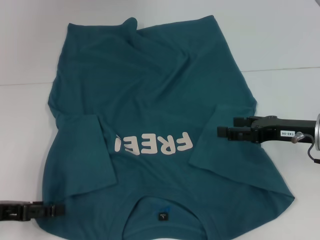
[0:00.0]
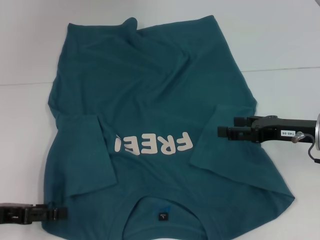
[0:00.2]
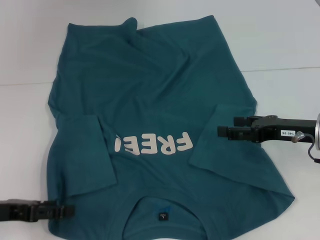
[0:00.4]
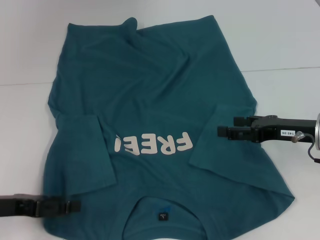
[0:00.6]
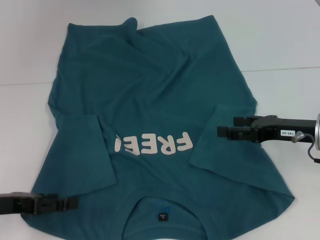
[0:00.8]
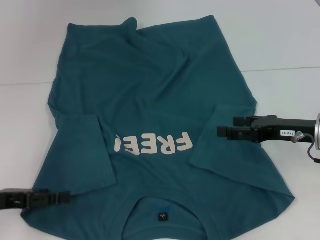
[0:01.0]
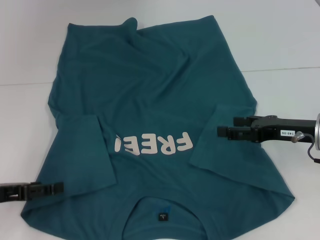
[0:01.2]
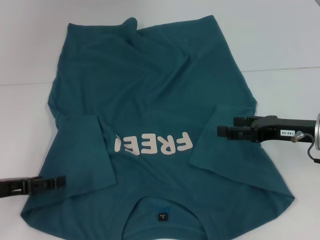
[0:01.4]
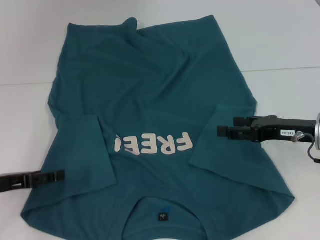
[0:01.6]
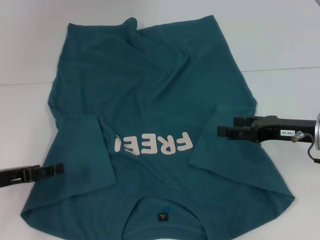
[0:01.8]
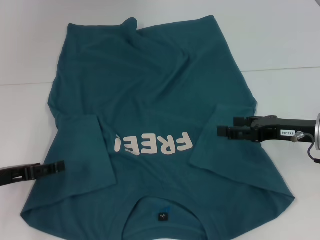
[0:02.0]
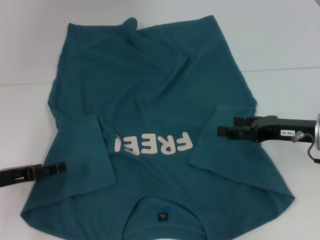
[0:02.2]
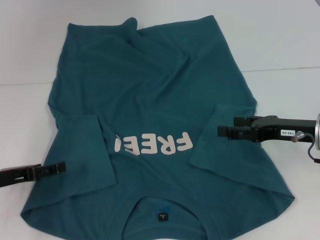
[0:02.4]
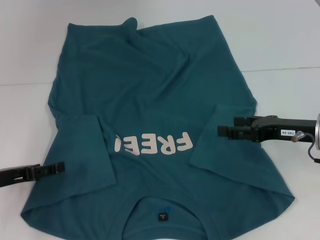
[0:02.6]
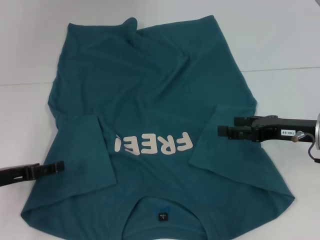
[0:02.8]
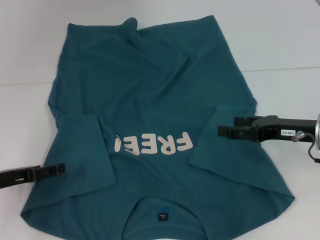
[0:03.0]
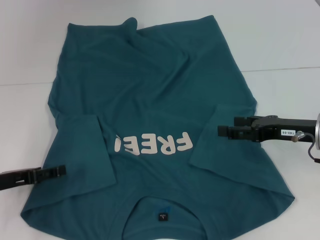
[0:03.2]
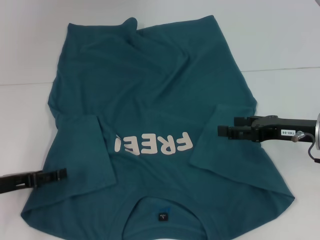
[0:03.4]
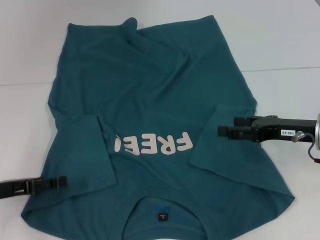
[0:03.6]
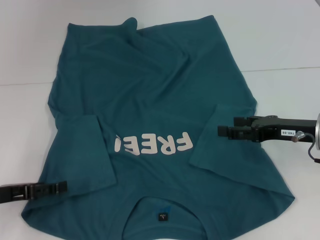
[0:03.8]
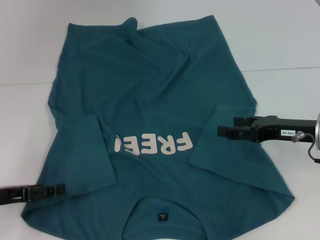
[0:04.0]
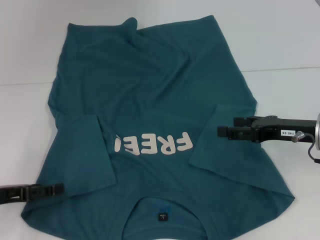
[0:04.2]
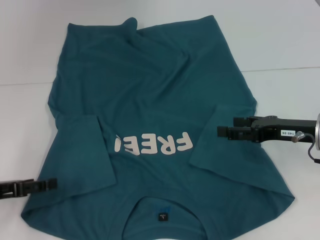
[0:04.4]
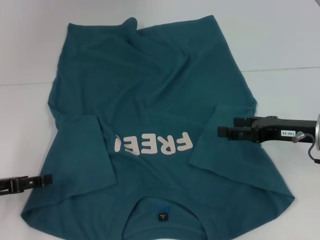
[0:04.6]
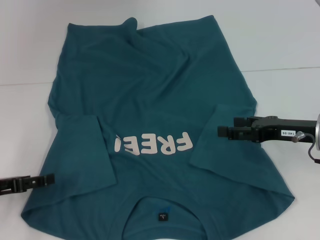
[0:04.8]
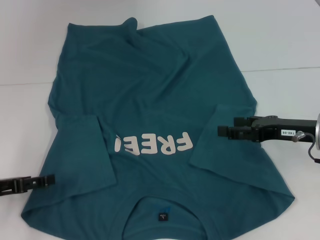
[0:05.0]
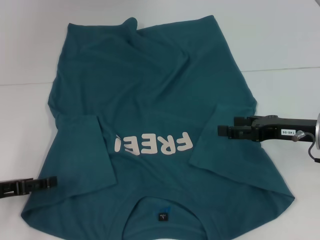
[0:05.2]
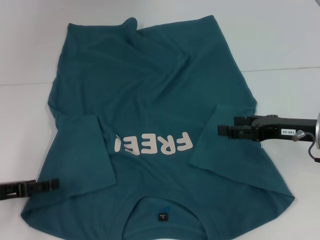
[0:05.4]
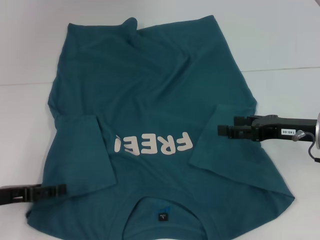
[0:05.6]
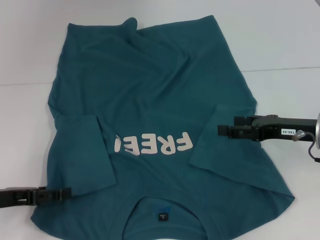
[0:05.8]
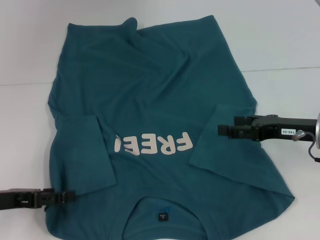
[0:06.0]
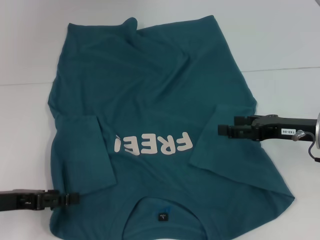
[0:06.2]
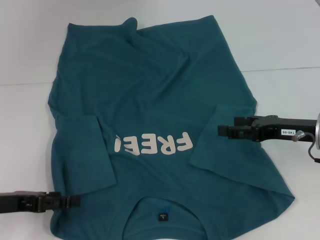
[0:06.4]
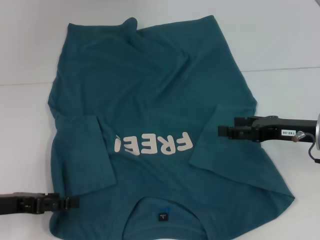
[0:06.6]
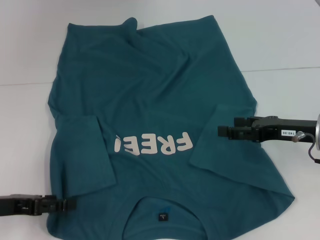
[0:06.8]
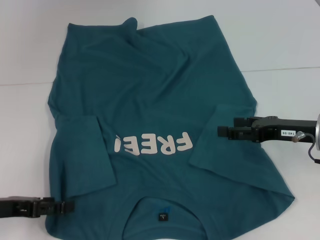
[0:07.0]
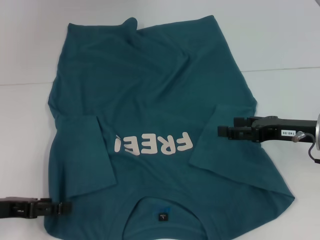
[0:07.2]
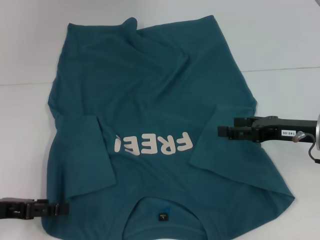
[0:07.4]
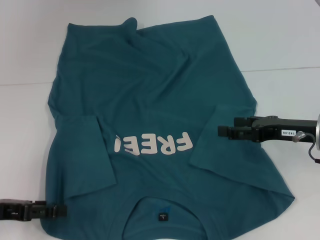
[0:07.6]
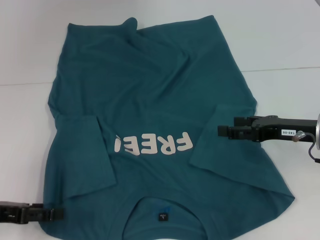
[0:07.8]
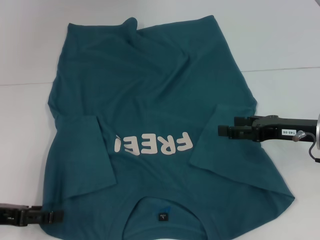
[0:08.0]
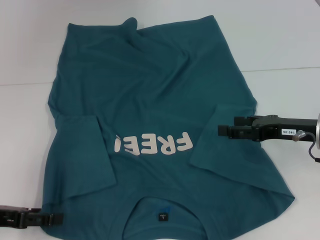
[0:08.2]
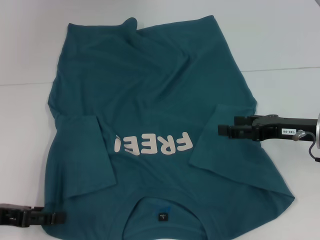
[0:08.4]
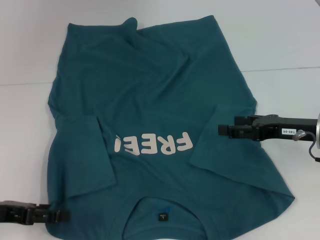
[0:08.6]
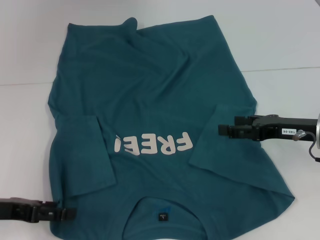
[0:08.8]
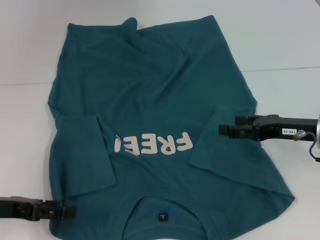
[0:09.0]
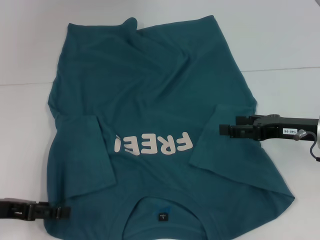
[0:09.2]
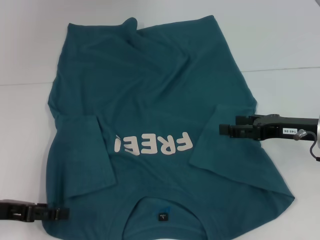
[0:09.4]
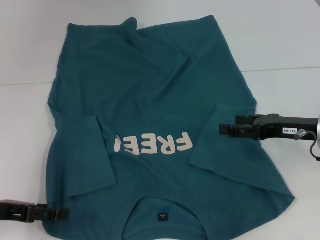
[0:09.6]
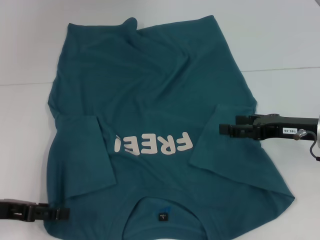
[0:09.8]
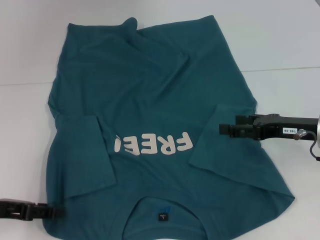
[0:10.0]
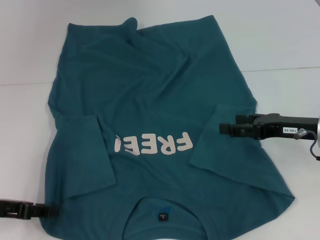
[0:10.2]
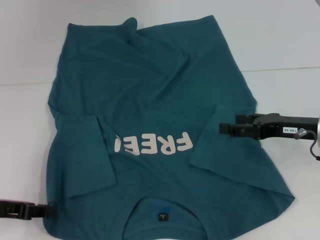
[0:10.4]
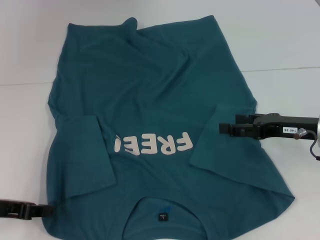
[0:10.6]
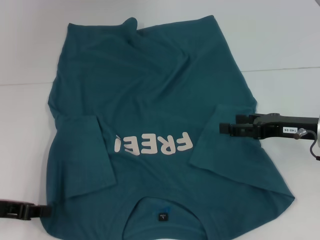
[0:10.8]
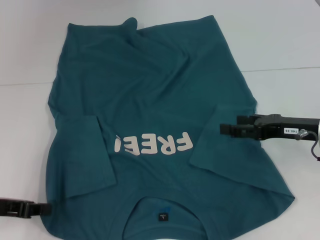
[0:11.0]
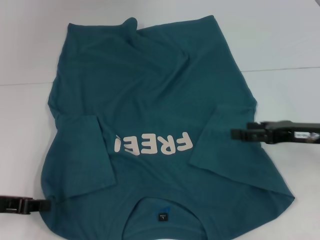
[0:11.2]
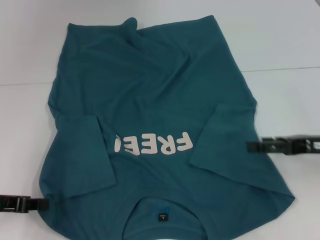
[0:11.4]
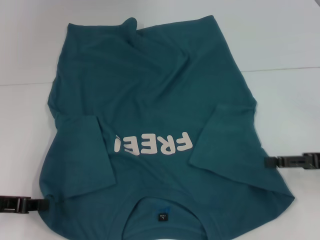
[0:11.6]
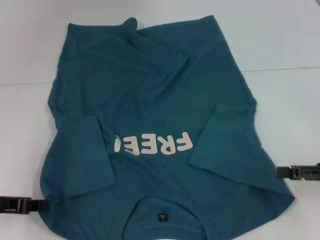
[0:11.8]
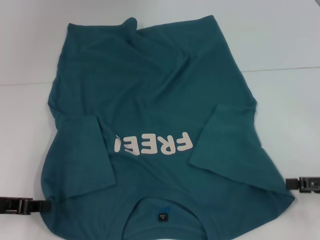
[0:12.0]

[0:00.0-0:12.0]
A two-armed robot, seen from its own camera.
Step, 0:00.0 to 0:11.2: Grab the bottom left corner with your left hand.
0:00.0 to 0:06.0: The grippers stay close to where they were, moving slightly.
0:06.0 to 0:07.6: The two grippers keep their place.
0:07.6 to 0:09.0: The grippers stay close to where they were, moving slightly.
0:09.0 to 0:10.4: The left gripper closes up.
0:10.4 to 0:12.0: The left gripper closes, while the right gripper moves to the right and backward, about 10 cm.

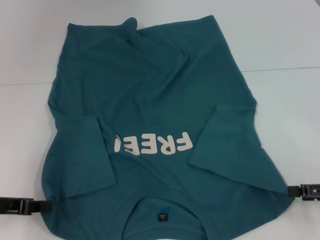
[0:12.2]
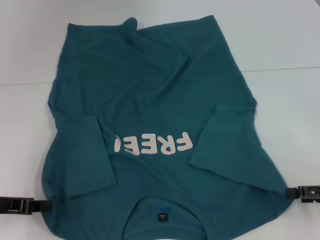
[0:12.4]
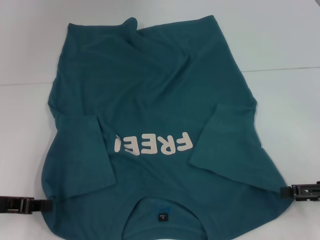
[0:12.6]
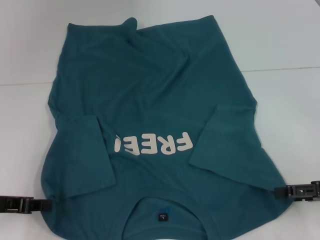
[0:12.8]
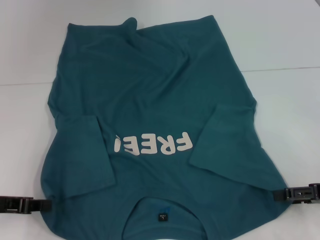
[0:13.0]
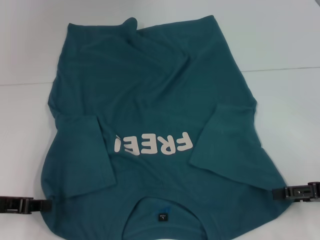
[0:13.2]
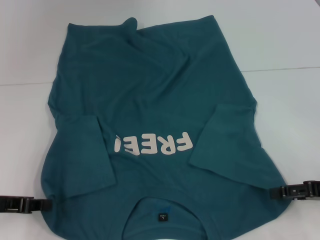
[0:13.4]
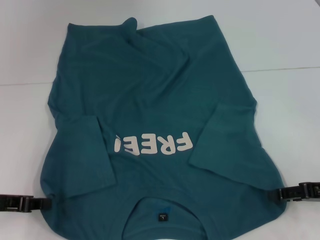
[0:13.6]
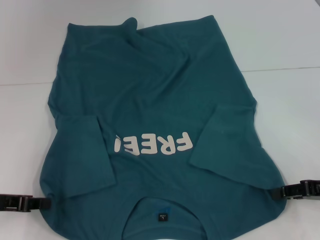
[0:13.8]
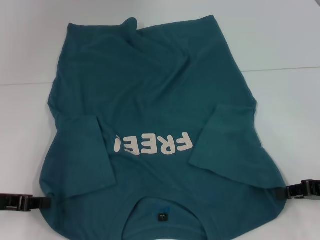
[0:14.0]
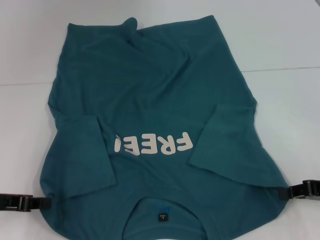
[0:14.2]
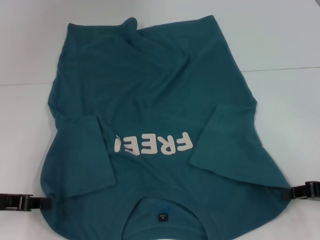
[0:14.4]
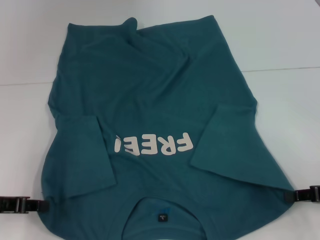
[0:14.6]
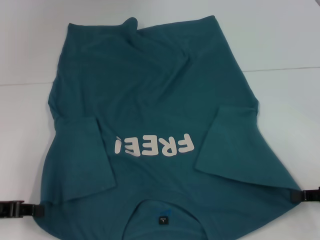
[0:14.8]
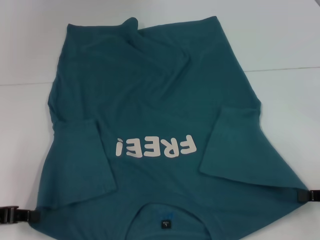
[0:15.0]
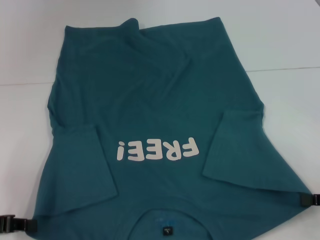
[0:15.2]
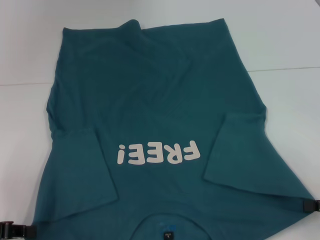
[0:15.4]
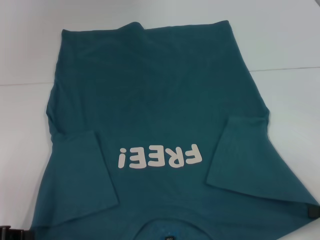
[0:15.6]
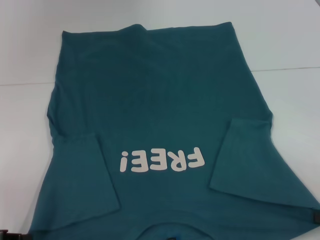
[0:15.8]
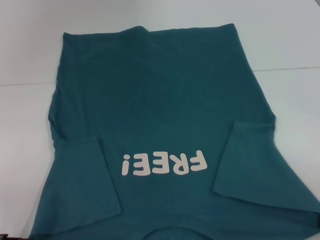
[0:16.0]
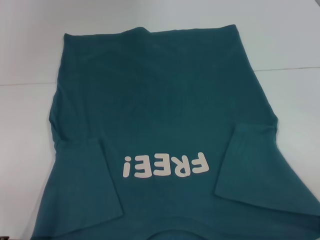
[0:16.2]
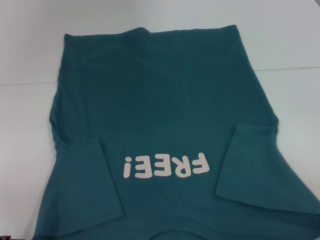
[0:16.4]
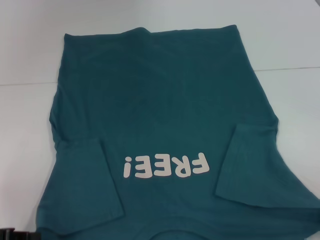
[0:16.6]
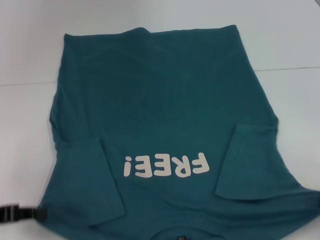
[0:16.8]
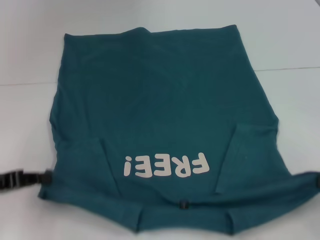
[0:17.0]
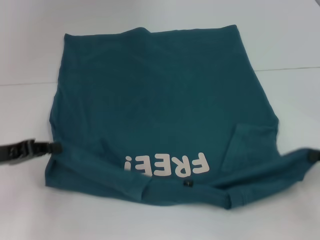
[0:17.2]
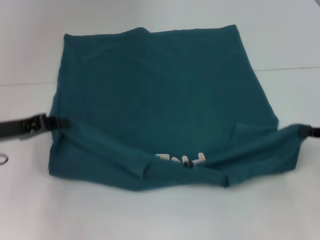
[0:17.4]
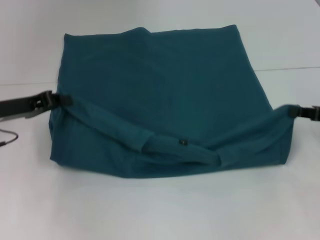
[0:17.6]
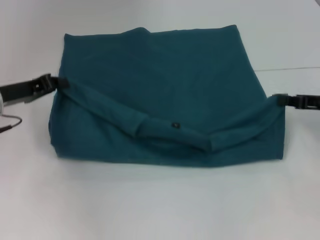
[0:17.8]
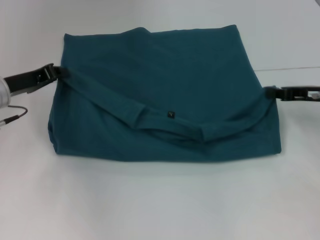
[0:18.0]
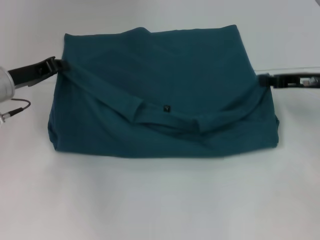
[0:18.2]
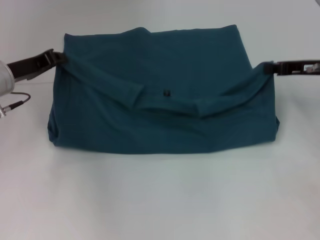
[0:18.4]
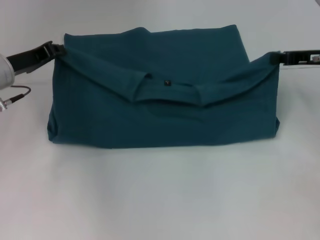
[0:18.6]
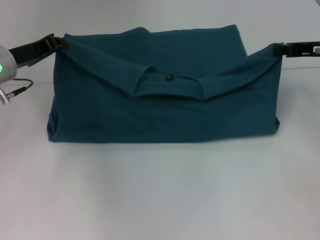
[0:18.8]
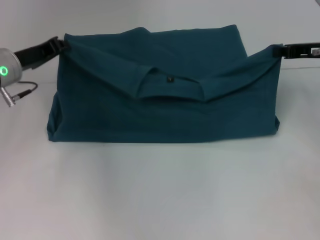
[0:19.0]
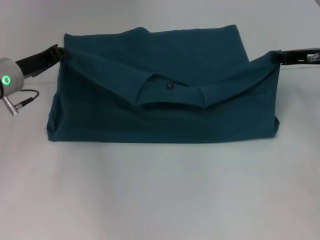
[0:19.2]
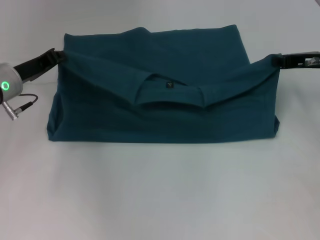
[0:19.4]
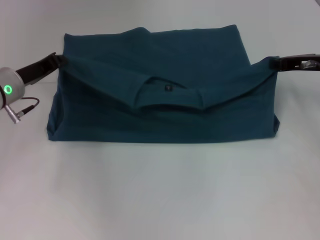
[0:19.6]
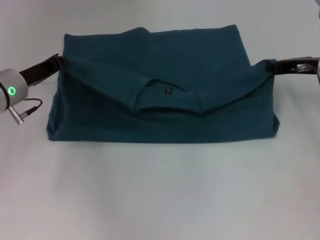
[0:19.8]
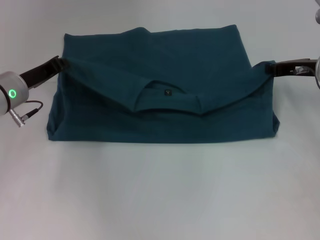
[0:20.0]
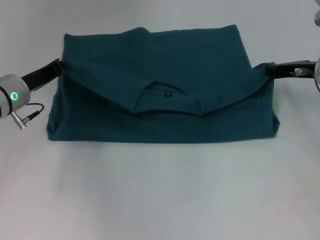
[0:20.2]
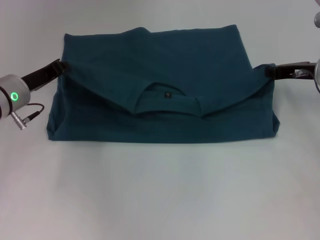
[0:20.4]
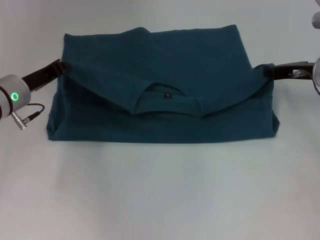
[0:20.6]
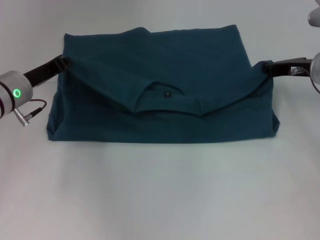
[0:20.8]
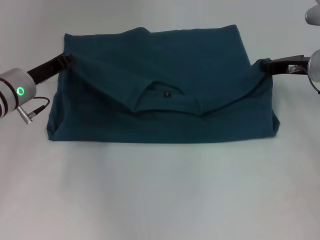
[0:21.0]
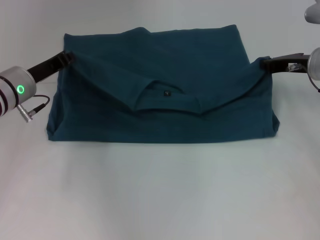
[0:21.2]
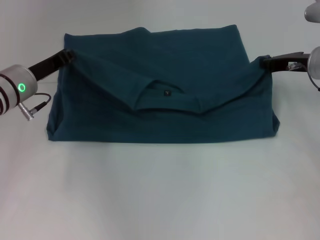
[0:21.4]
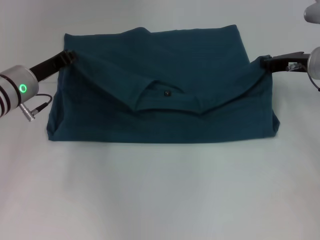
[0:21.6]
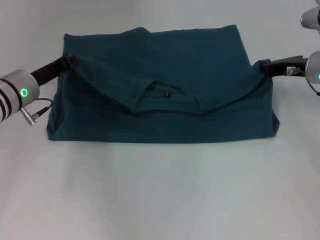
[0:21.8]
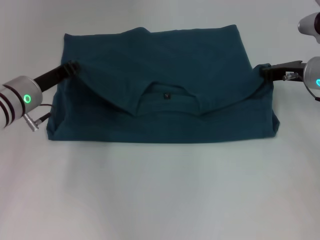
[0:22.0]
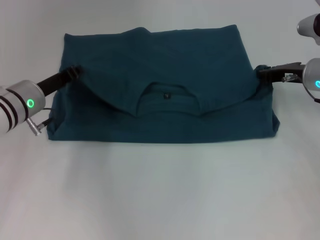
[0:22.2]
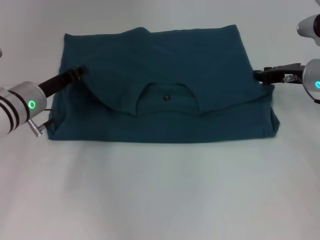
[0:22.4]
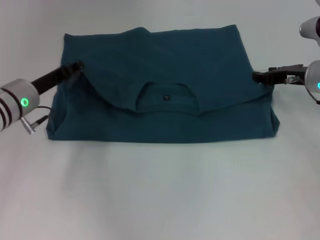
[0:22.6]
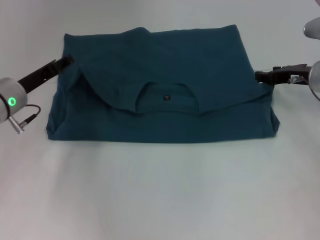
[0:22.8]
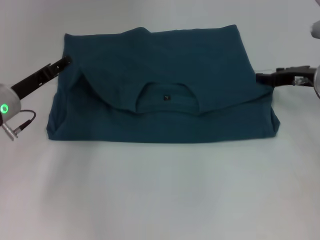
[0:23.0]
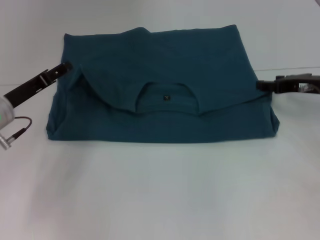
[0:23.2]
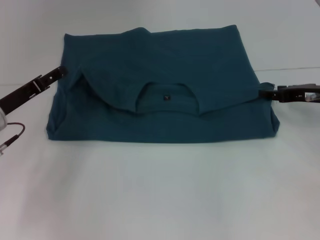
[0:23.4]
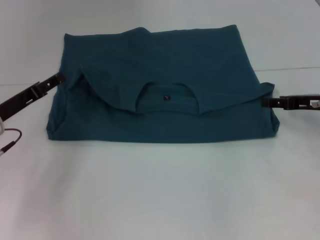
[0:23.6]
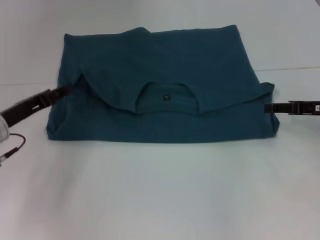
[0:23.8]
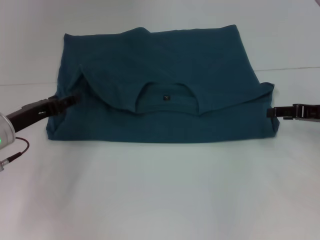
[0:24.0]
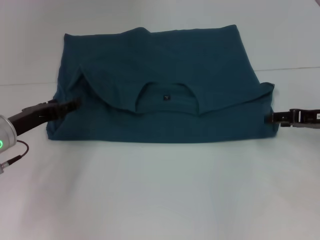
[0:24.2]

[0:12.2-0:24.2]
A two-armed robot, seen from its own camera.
Step, 0:12.2 to 0:14.6: Grab the bottom right corner with your right hand.
Step, 0:14.8 to 0:23.4: Fold the clothes to the left.
Step, 0:14.8 to 0:23.4: Fold the clothes to the right.
0:12.2 to 0:13.8: The grippers stay close to where they were, moving slightly.
0:13.8 to 0:15.2: The right gripper moves roughly 5 cm, and closes its fingers.
0:15.2 to 0:16.6: The right gripper changes place by some 5 cm.
0:16.6 to 0:18.2: The right gripper shifts approximately 20 cm forward, while the left gripper moves forward and to the right, approximately 20 cm.
0:18.2 to 0:22.6: The grippers move only a little.
0:22.6 to 0:24.2: The grippers both shift backward by about 5 cm. The right gripper opens up. The left gripper opens.
